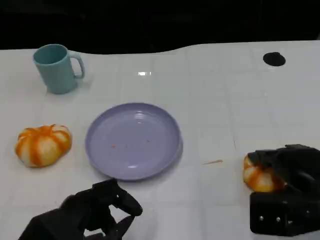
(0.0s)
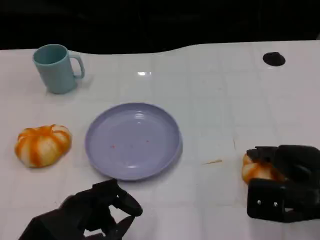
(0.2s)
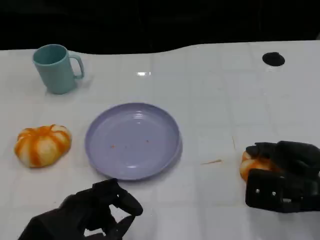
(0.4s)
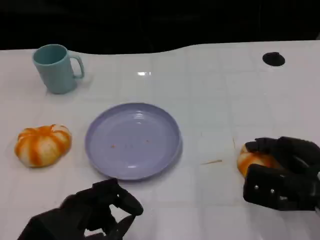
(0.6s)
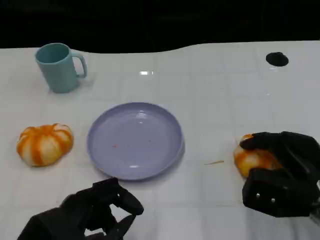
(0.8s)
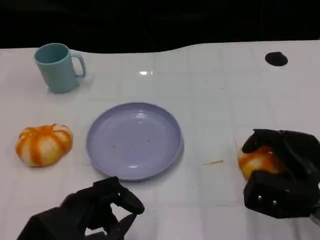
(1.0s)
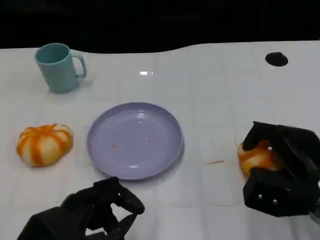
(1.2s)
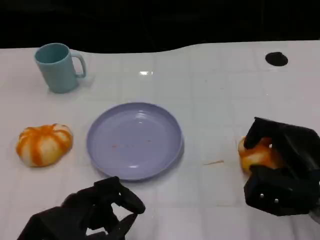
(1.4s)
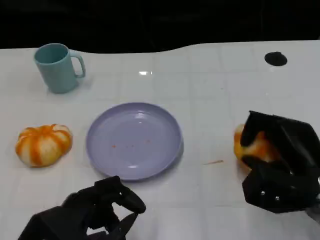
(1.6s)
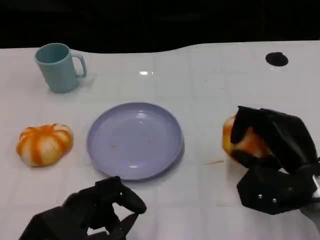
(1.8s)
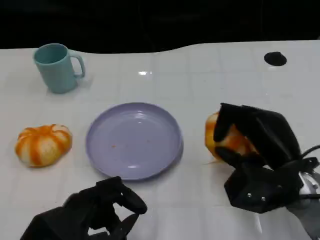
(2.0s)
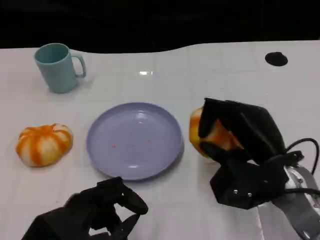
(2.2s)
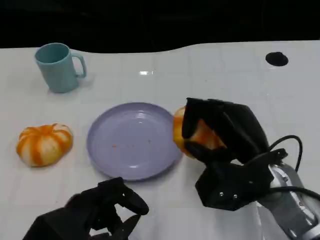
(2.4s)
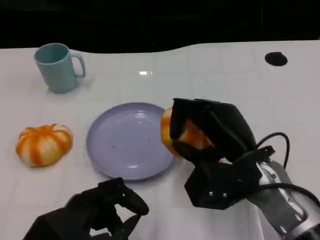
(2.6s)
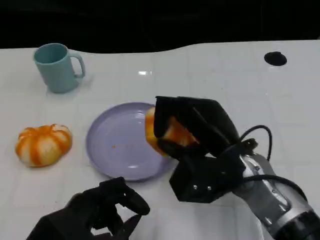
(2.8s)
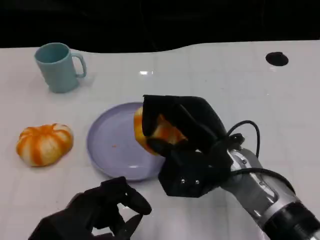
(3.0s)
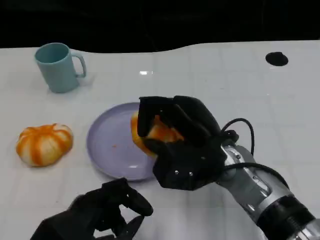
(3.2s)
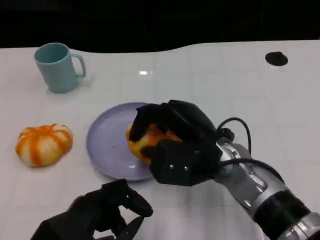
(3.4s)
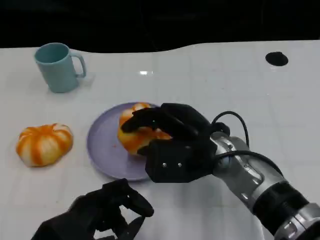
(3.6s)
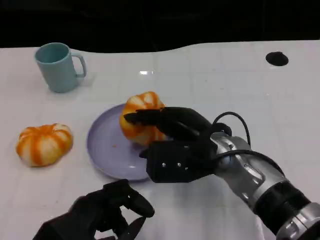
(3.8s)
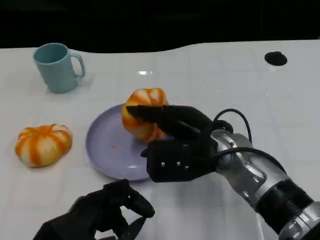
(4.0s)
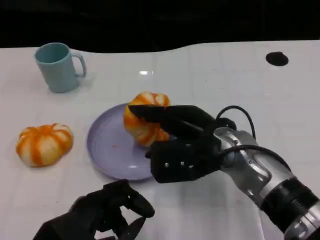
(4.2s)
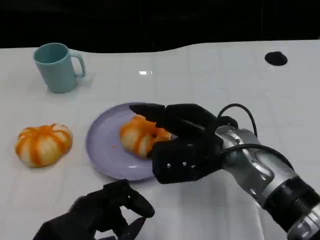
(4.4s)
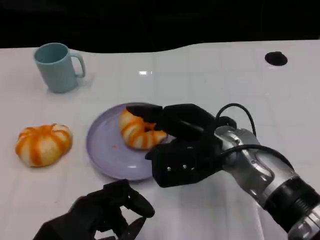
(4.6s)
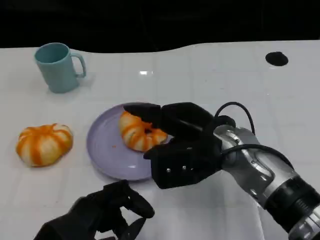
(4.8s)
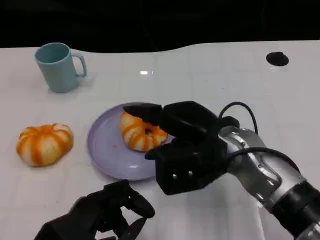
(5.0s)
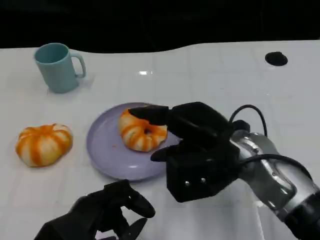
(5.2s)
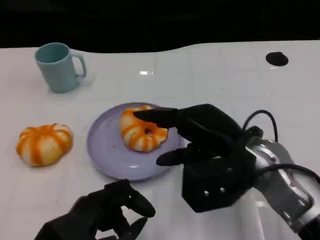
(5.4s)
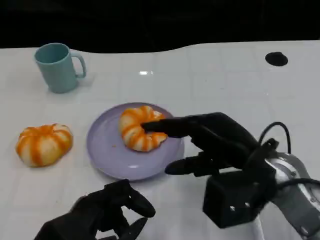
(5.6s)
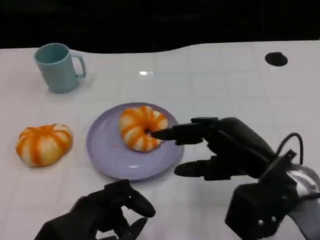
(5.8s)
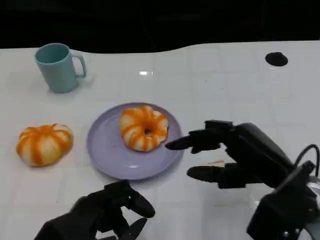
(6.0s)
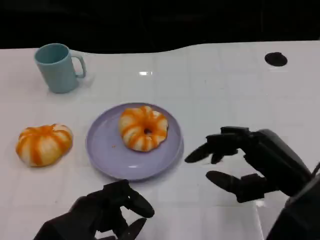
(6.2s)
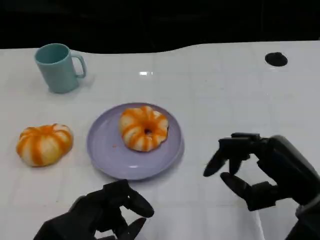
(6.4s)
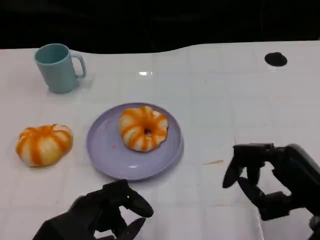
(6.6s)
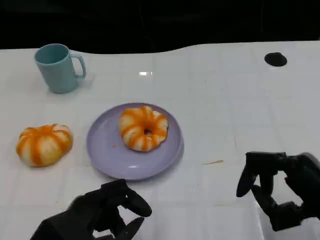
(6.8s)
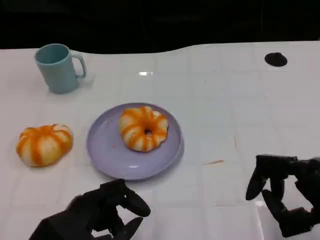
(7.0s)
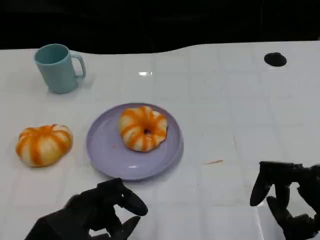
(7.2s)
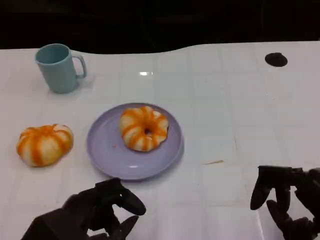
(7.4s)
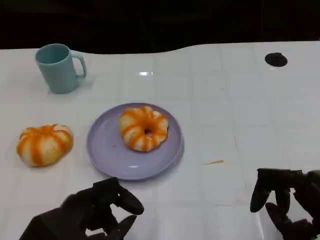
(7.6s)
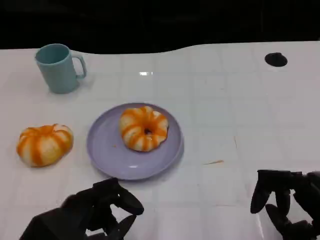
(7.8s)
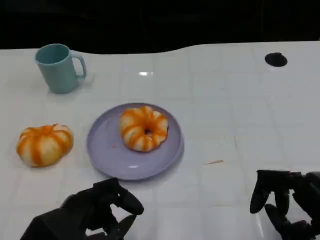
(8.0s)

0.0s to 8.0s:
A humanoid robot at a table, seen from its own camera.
Task of the whole recording: Grasp the bread from the table and place it into the plate.
1.6s to 3.2s: The right hand moves to the left, approximately 15 cm.
4.8s to 6.4s: The right hand shifts some 15 cm to the right and backward.
6.4s to 8.0s: The right hand changes place by some 5 cm.

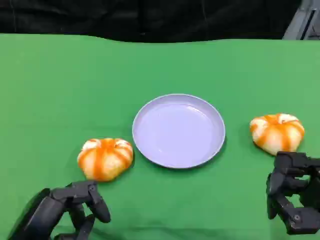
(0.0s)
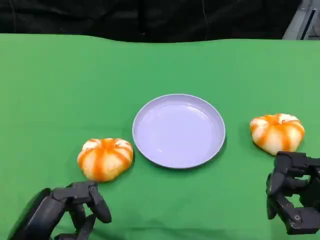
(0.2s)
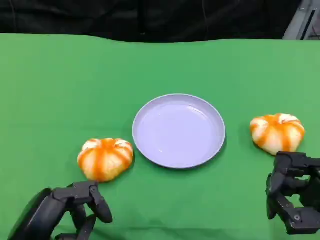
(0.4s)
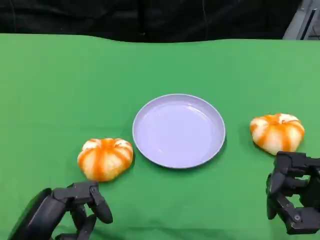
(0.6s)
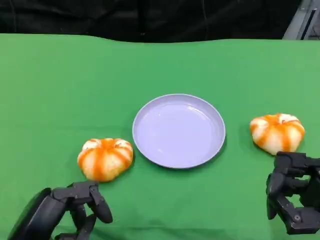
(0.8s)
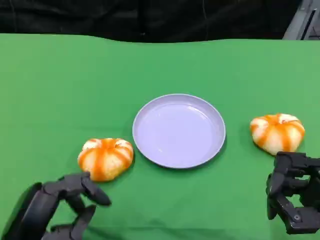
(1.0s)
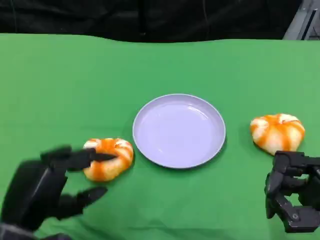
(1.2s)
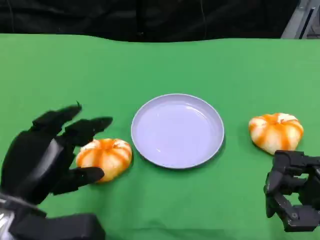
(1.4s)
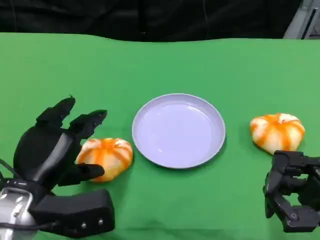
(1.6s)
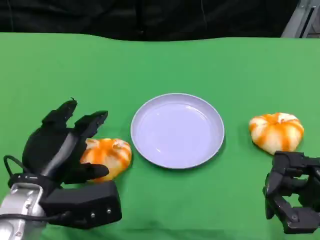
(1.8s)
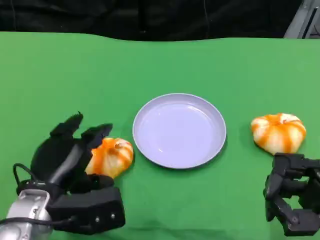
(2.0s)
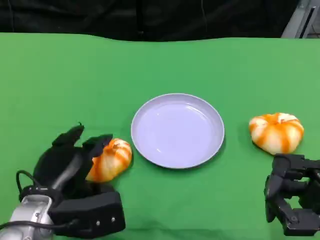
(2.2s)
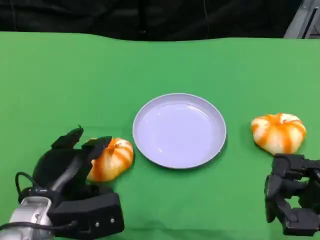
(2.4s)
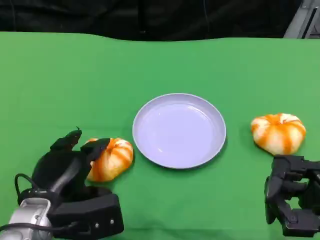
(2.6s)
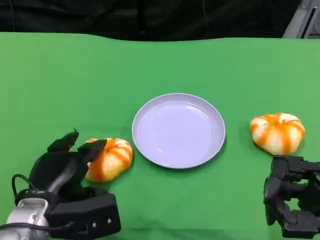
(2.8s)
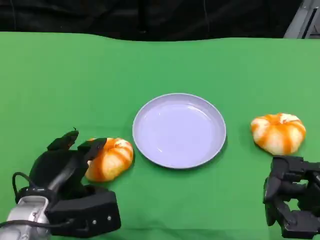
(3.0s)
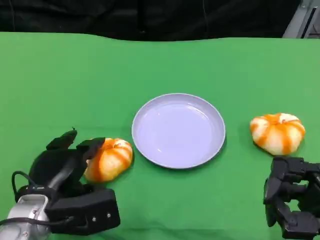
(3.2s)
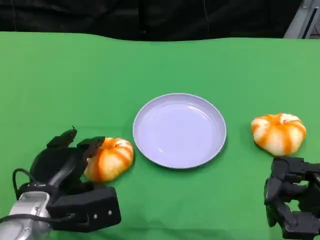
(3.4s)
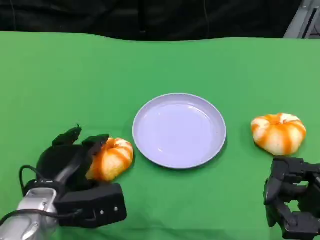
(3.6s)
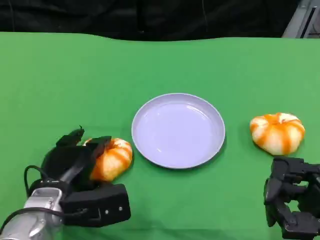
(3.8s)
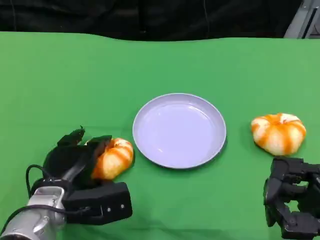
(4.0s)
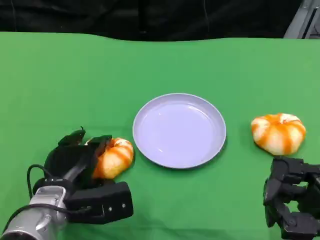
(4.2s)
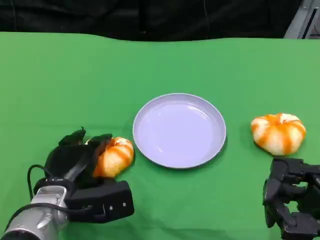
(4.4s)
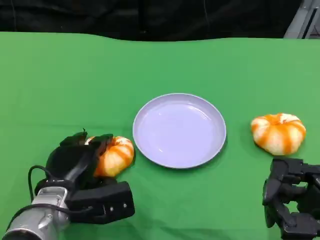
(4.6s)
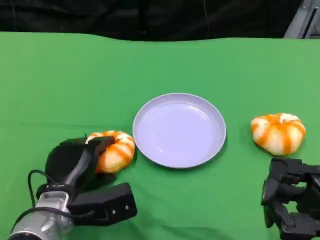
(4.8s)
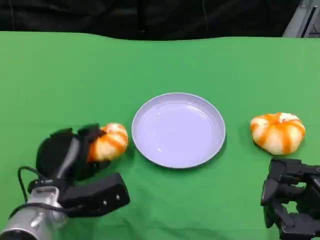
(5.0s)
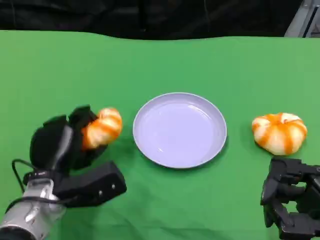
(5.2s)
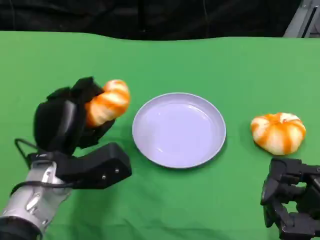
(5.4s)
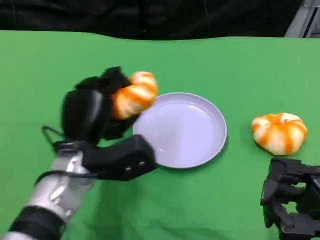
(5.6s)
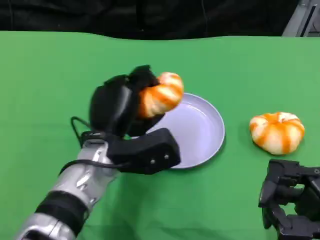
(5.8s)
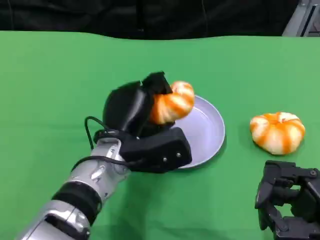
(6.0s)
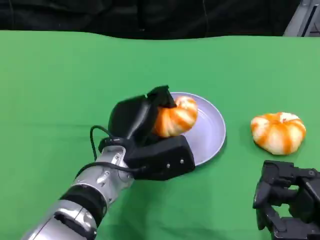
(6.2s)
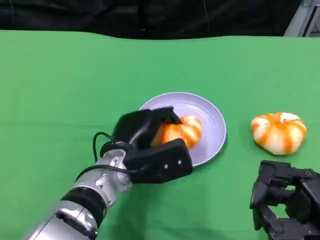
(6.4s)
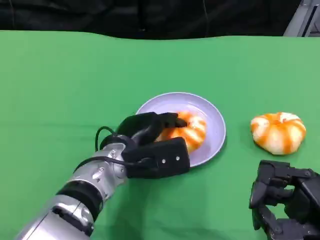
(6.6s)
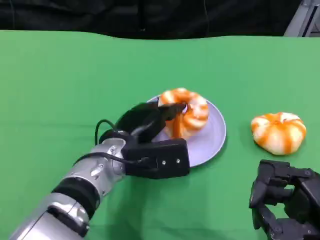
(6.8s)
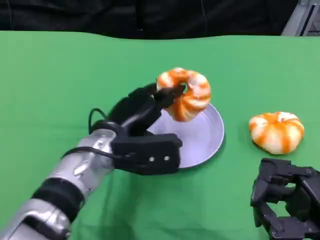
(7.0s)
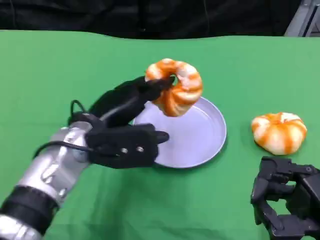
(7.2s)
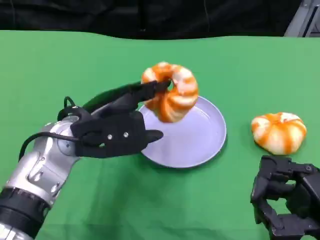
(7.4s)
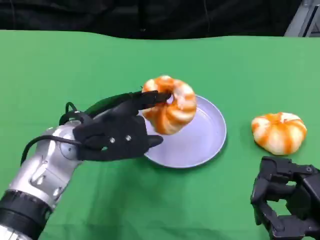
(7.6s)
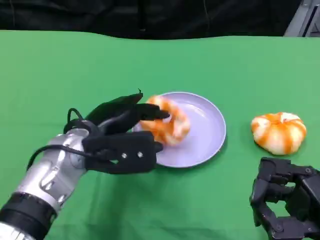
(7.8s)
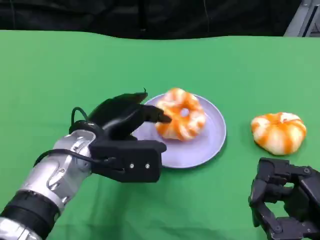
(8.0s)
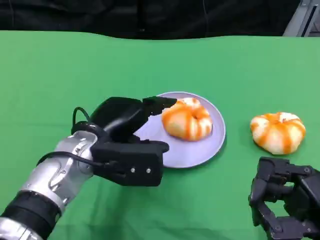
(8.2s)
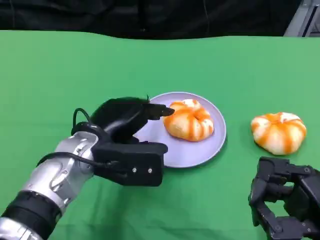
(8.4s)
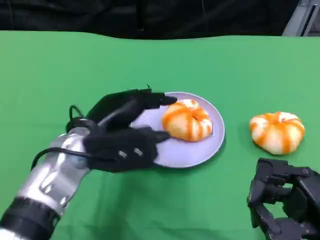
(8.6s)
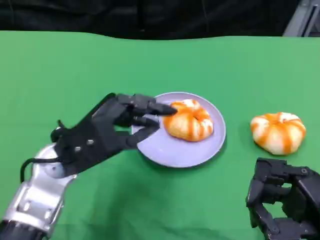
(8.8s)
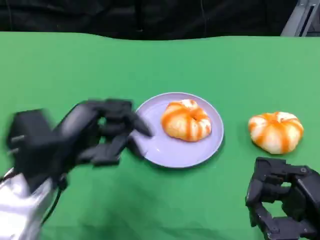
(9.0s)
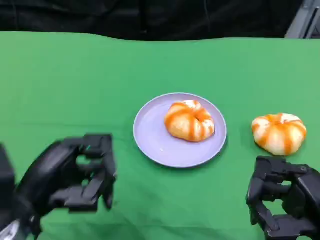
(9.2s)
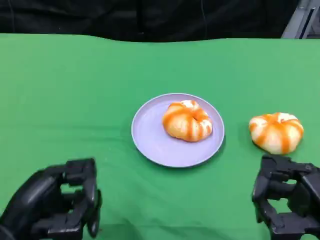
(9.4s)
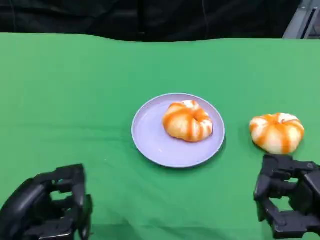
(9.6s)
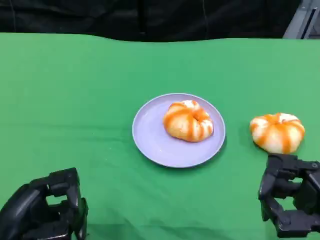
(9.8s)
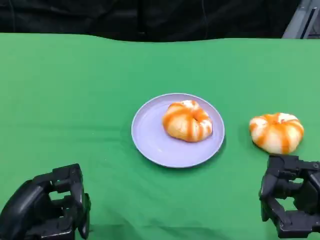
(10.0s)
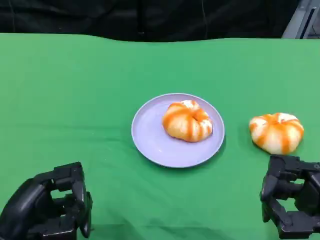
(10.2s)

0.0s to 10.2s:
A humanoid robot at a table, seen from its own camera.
Task of the whole recording: Grasp the bread from the table and place it into the plate.
0.0s to 1.4s: The left hand heads forward, covering roughly 5 cm.
1.4s to 3.0s: The left hand travels downward by about 5 cm.
3.0s to 4.4s: There are only small adjustments of the hands.
4.4s to 5.8s: The left hand shifts about 10 cm to the right and upward.
5.8s to 7.2s: The left hand ends up about 5 cm from where it was.
8.8s to 10.2s: The left hand goes approximately 15 cm backward and to the left.

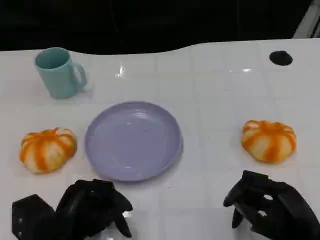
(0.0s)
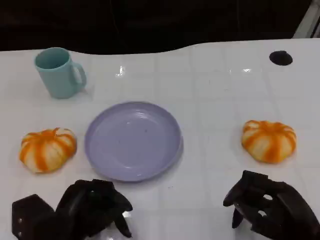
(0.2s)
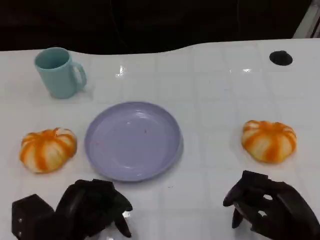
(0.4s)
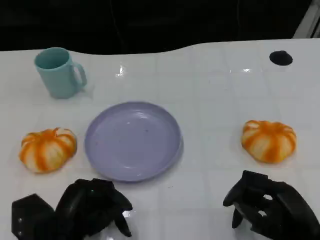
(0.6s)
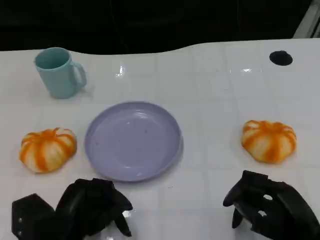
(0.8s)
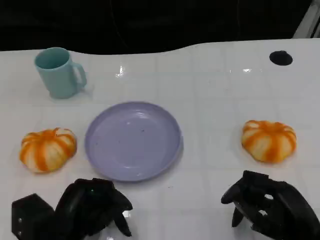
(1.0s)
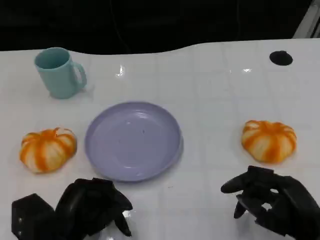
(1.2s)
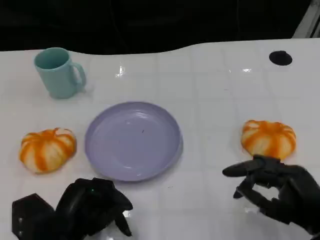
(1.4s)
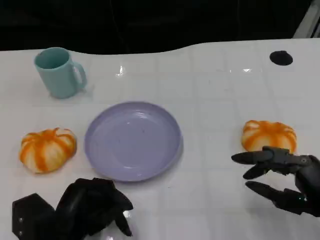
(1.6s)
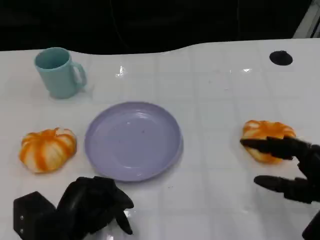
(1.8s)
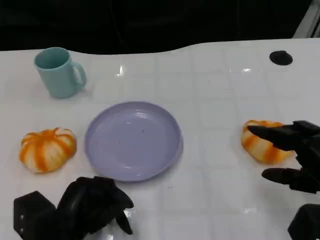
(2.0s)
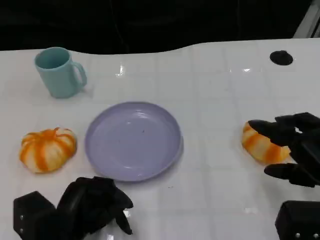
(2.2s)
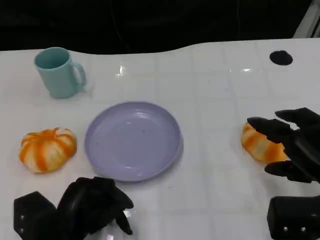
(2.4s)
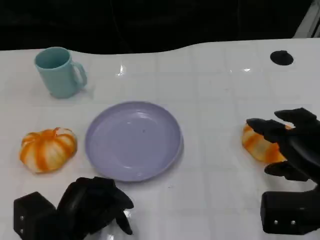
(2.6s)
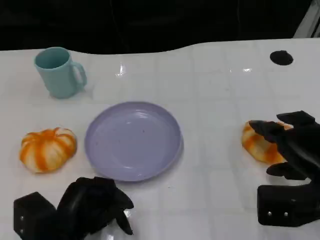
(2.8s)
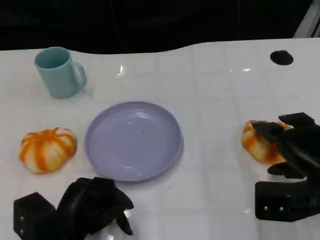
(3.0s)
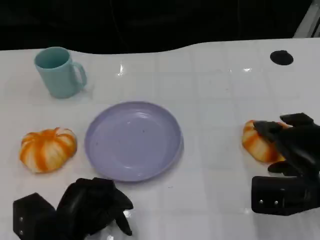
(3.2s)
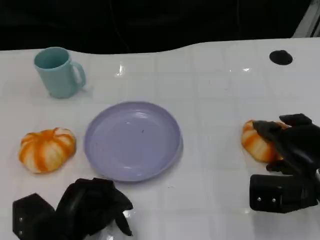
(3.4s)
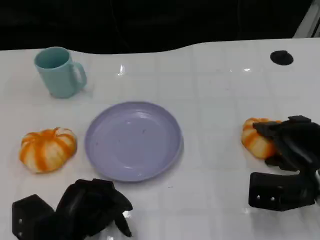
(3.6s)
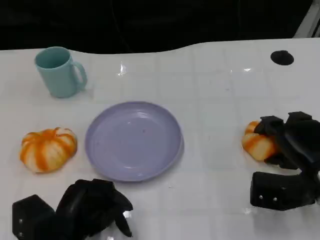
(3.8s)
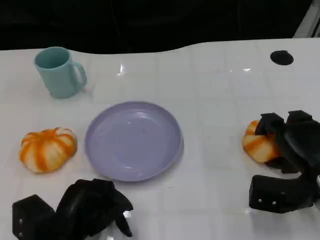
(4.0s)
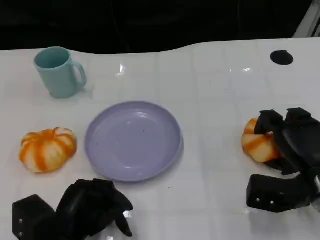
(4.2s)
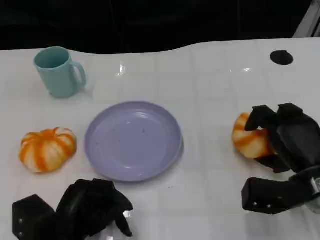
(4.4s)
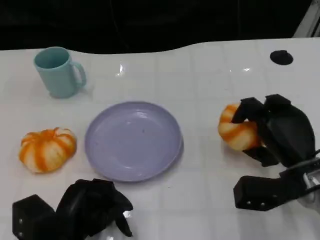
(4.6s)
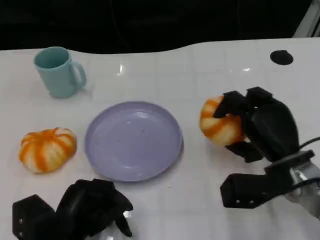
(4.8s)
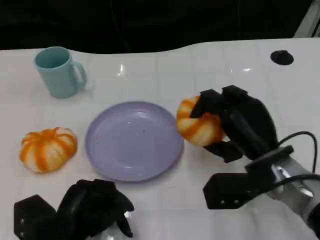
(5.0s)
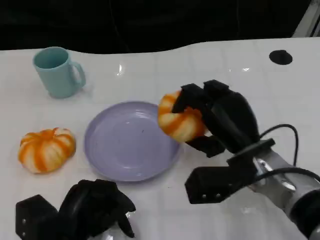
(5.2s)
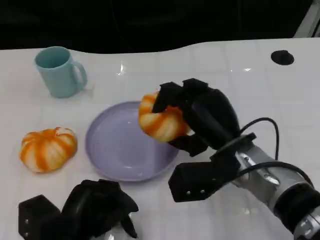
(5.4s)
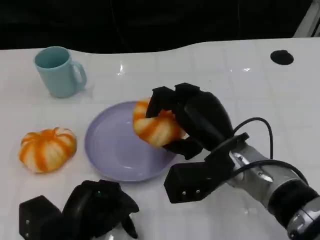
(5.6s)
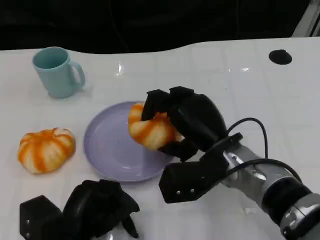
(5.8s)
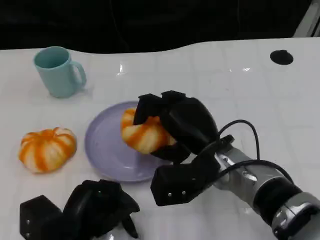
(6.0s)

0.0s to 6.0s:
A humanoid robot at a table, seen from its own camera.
Task of the whole recording: Grasp the bread from the table and place it into the plate.
1.6s to 3.0s: The right hand moves forward, approximately 5 cm.
4.4s to 6.0s: The right hand travels to the left by roughly 15 cm.
